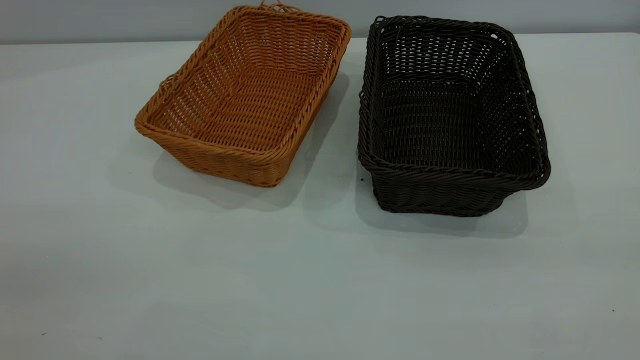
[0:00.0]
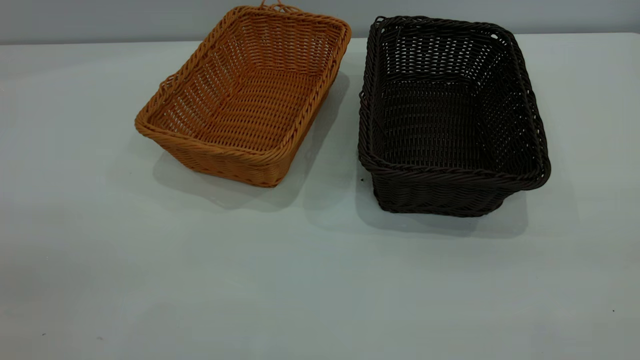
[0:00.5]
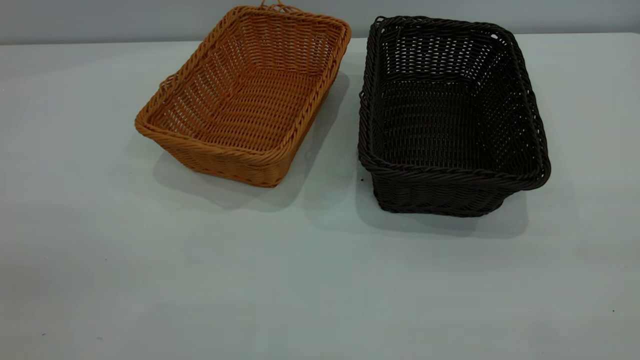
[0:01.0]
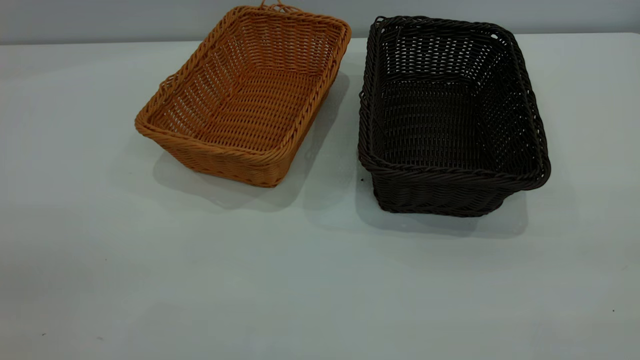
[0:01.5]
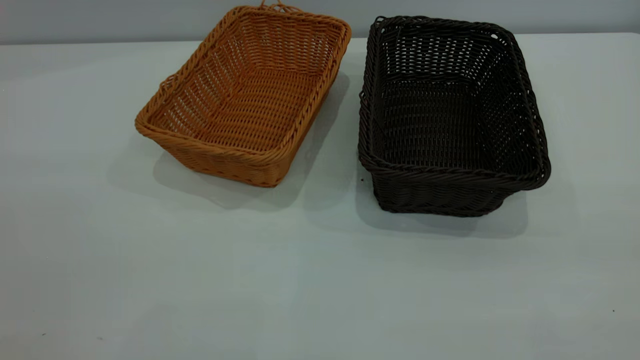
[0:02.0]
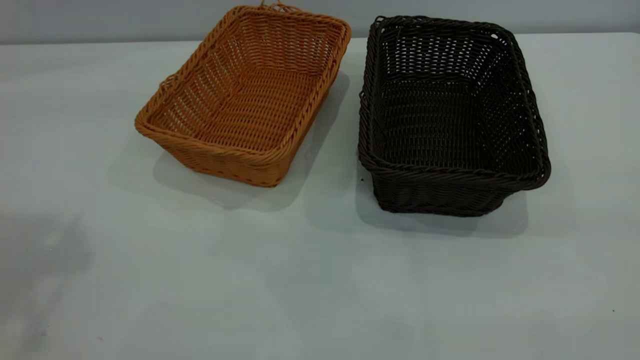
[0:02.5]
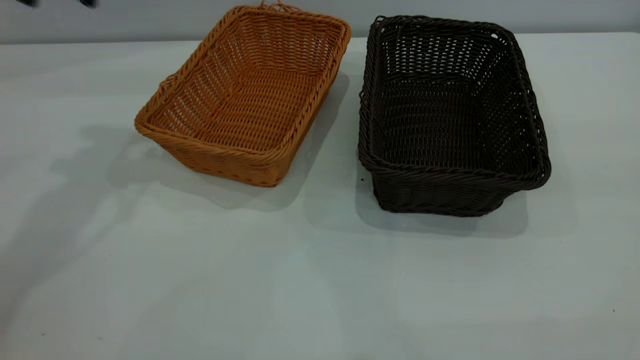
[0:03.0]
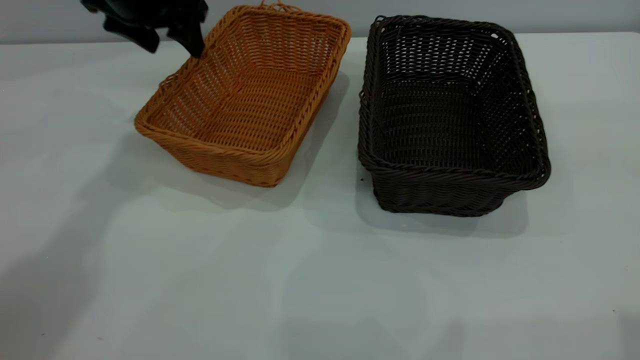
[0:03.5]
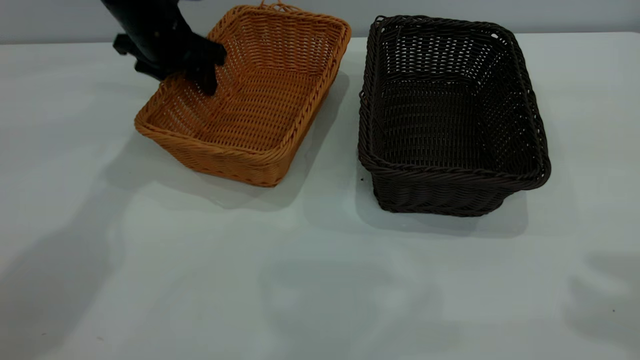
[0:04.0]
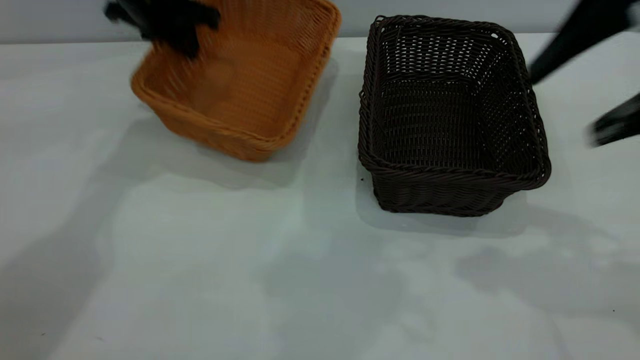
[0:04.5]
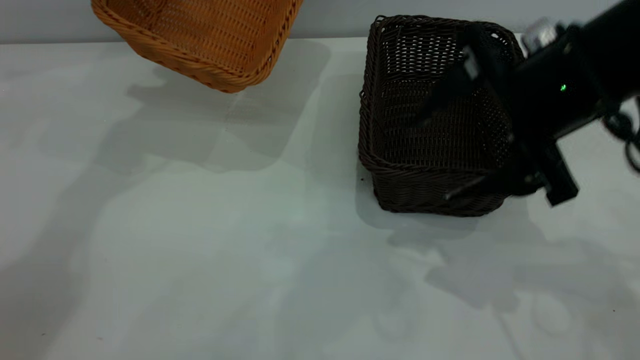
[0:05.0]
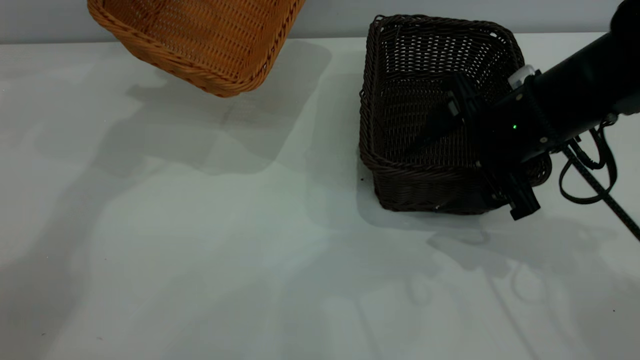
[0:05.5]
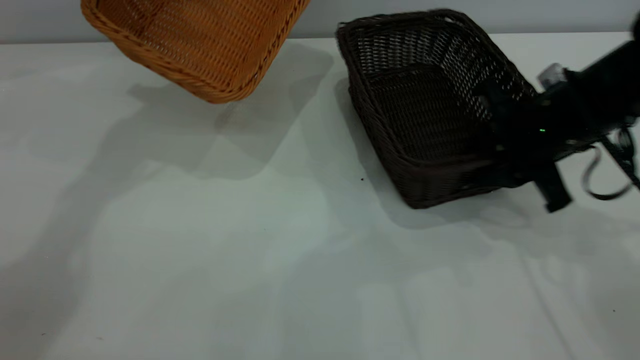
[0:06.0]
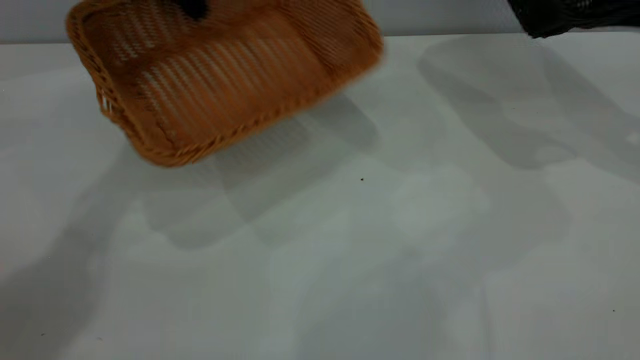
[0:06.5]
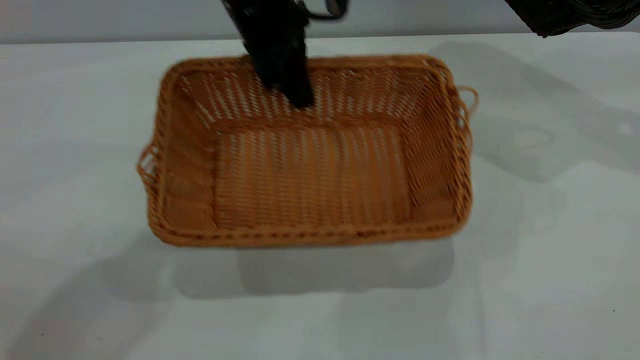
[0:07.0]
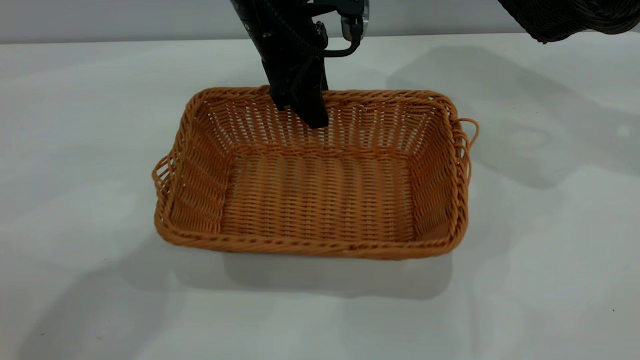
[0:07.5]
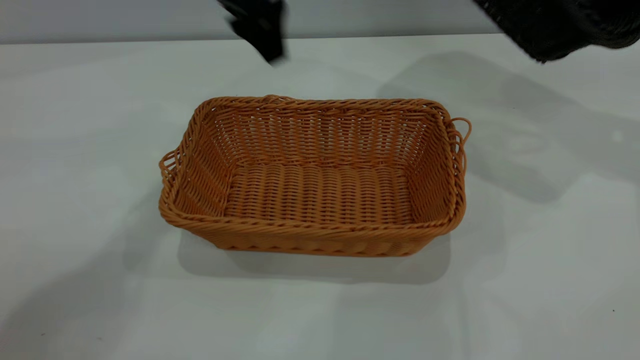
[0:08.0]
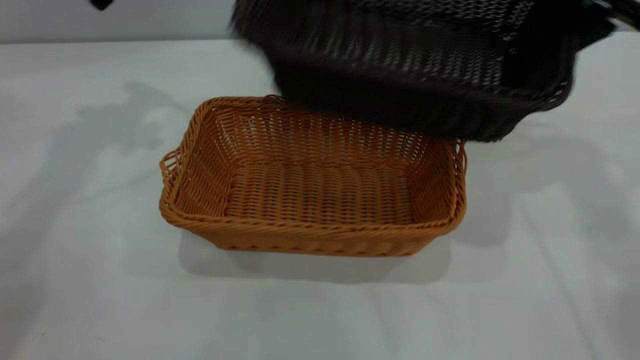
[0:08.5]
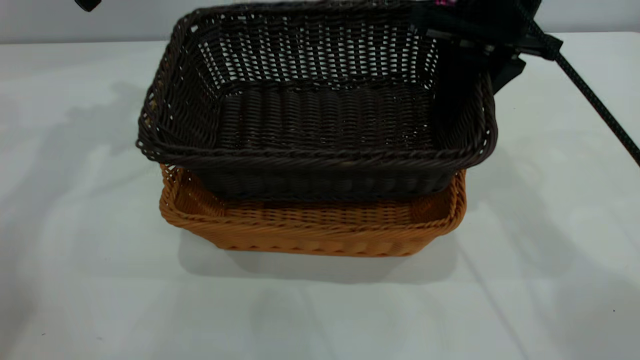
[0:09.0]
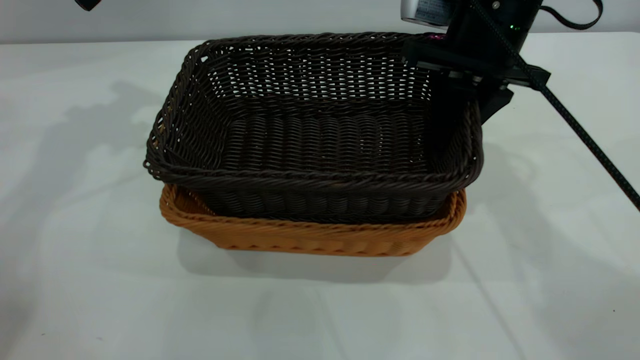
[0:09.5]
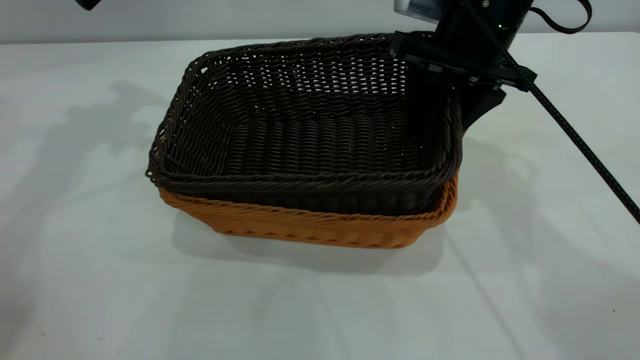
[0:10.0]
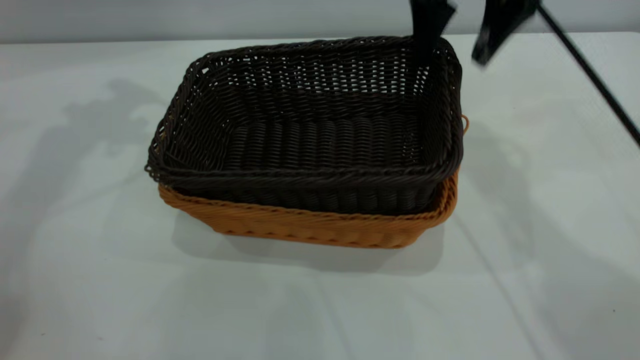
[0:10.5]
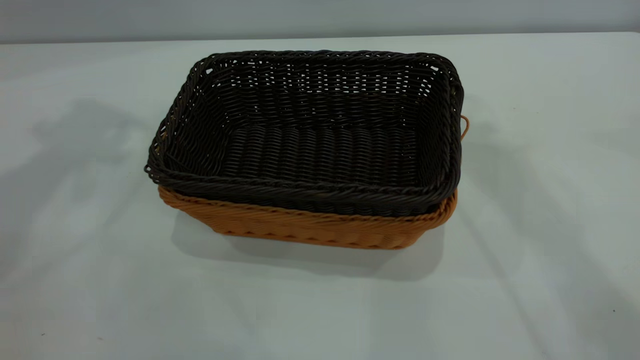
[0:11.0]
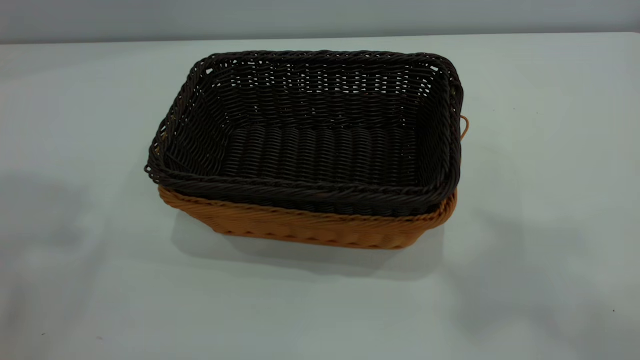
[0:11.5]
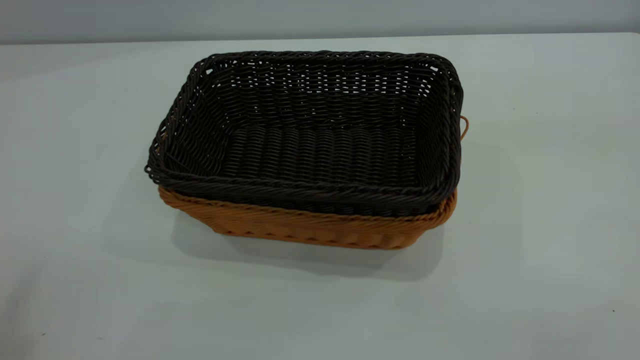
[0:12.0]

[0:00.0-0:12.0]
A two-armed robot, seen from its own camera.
Task of the whole recording: the left gripper grasp the brown basket and place it in the center of the table, the right gripper grasp the black basket and place it inside the brown one.
Step, 0:00.0 to 0:06.0: Pick up the light basket with the right gripper.
Step, 0:06.5 to 0:07.5: Place the light-colored basket in the center.
Step, 0:08.5 to 0:10.5: Place the dark basket on top of the light basket.
0:02.0 to 0:04.0: The left gripper goes approximately 50 cm forward and downward, and closes its fingers.
0:04.0 to 0:06.0: The right gripper goes some 30 cm downward and forward, and closes up. Meanwhile the left gripper travels upward by approximately 15 cm, and closes up.
0:06.0 to 0:08.0: The right gripper goes approximately 20 cm upward, to the right and forward; the left gripper heads to the right and backward, covering some 10 cm, and opens.
0:08.0 to 0:10.0: The two grippers go approximately 20 cm to the left. The right gripper opens up.
0:10.0 to 0:12.0: Both grippers move backward and upward, roughly 50 cm. The right gripper opens.

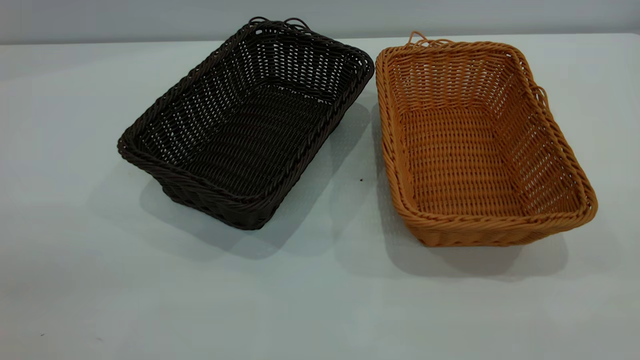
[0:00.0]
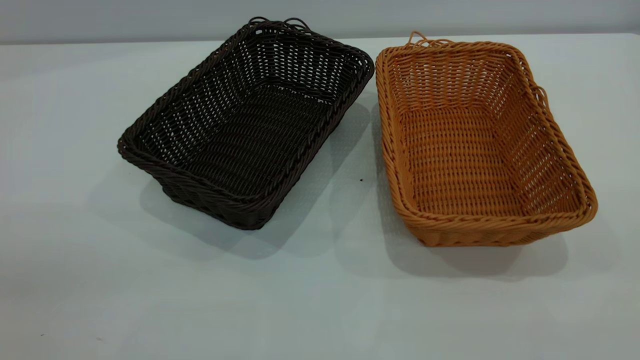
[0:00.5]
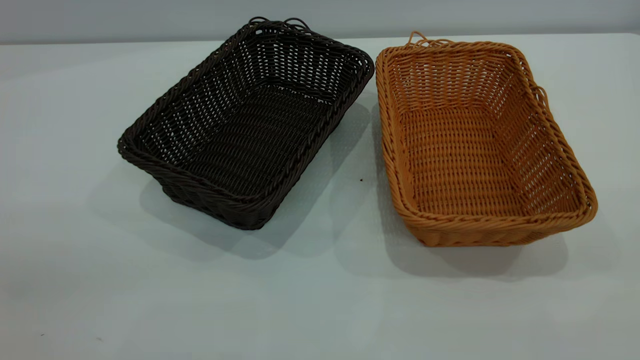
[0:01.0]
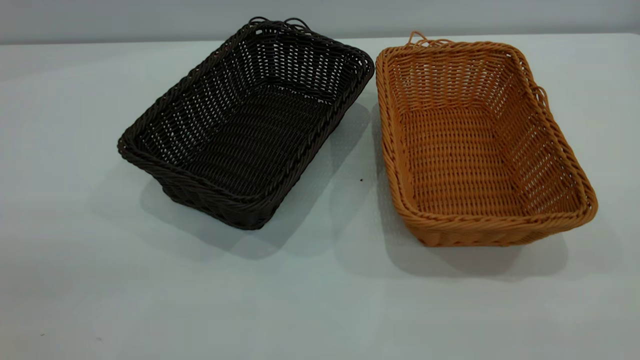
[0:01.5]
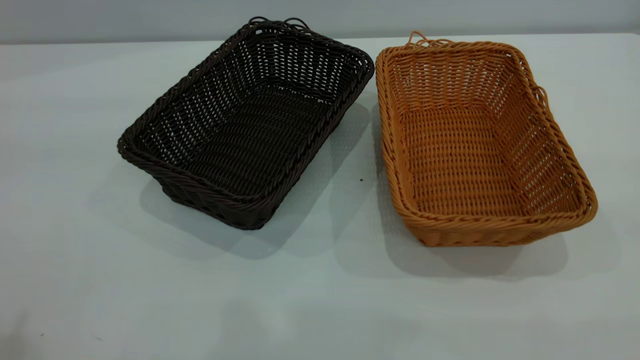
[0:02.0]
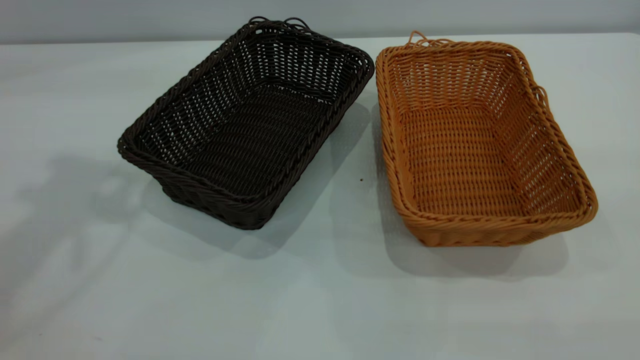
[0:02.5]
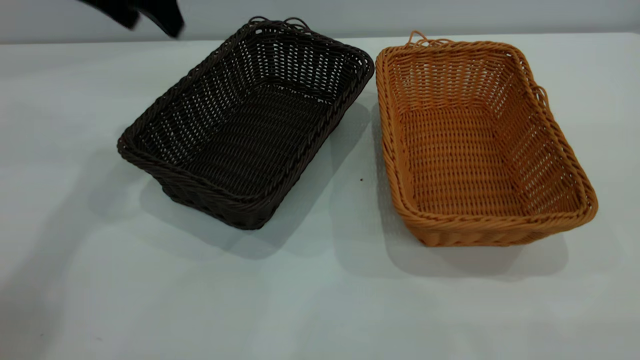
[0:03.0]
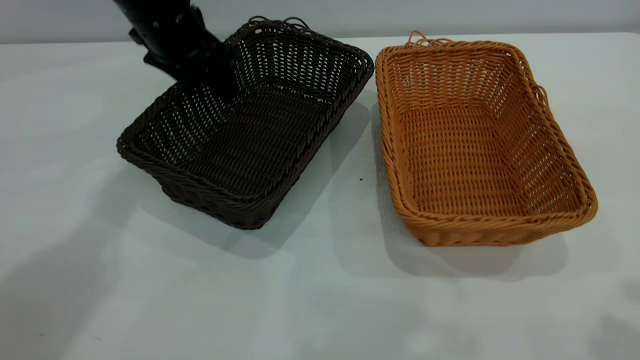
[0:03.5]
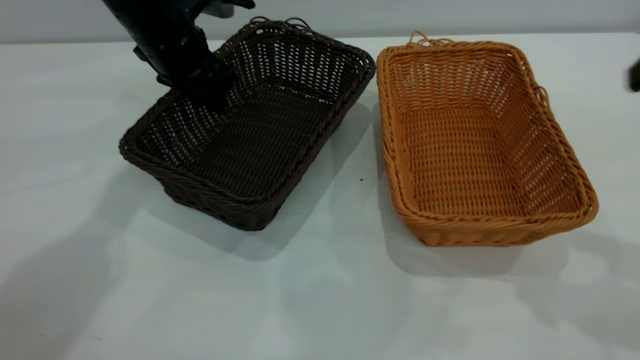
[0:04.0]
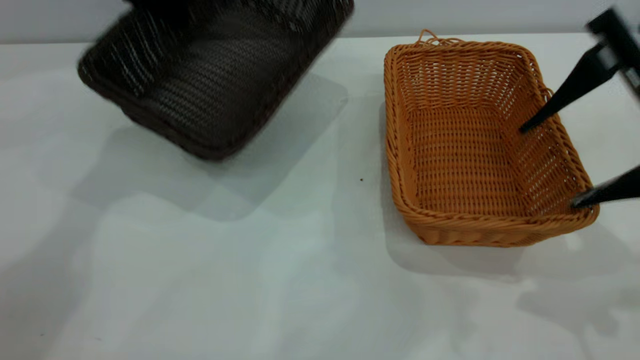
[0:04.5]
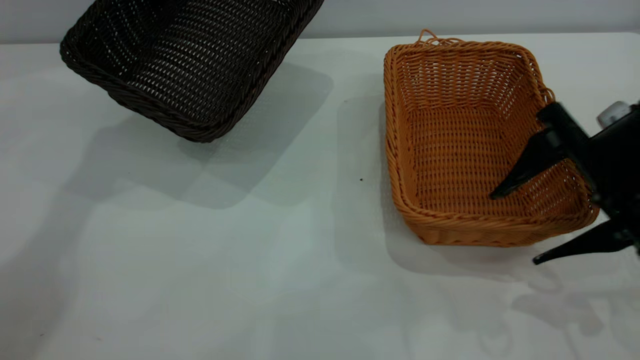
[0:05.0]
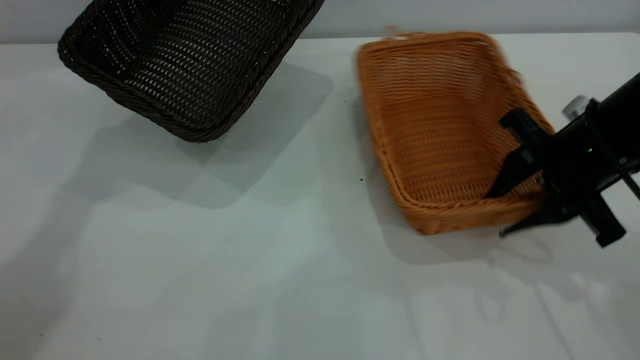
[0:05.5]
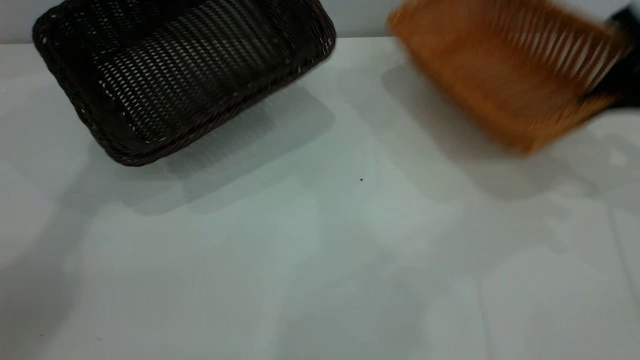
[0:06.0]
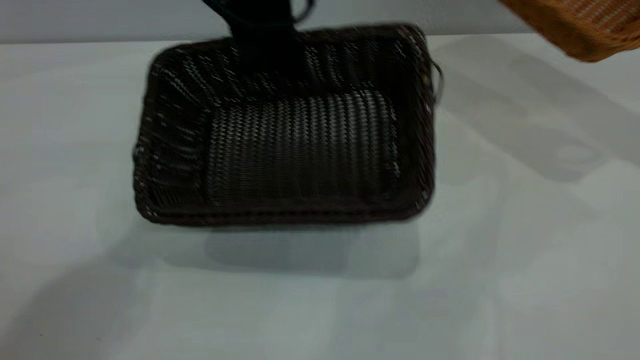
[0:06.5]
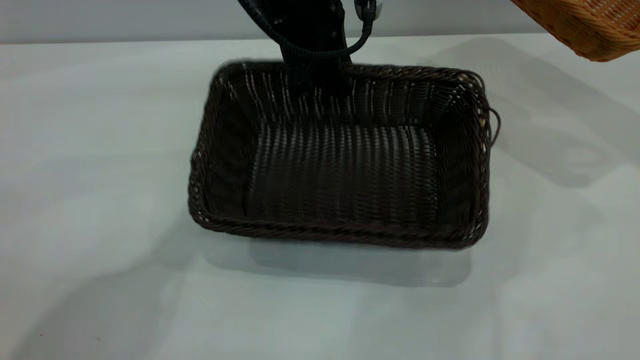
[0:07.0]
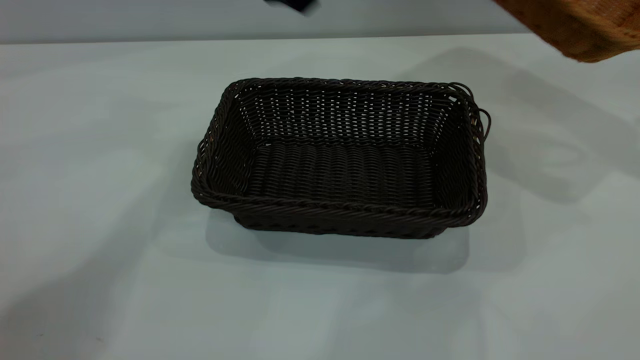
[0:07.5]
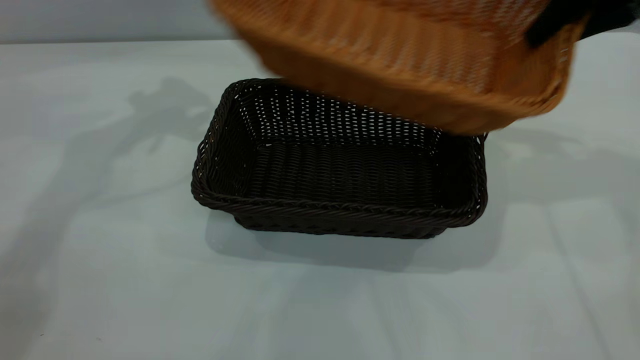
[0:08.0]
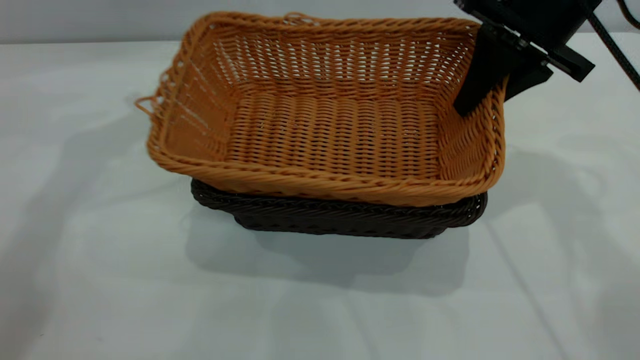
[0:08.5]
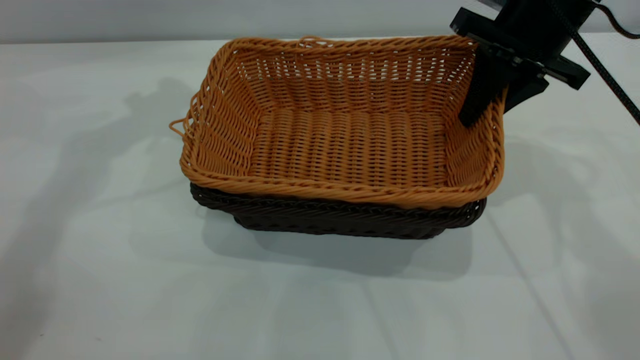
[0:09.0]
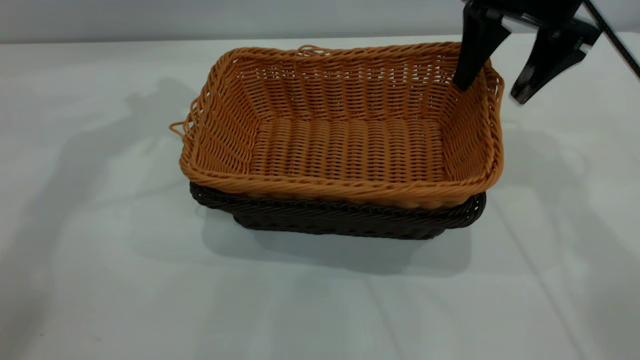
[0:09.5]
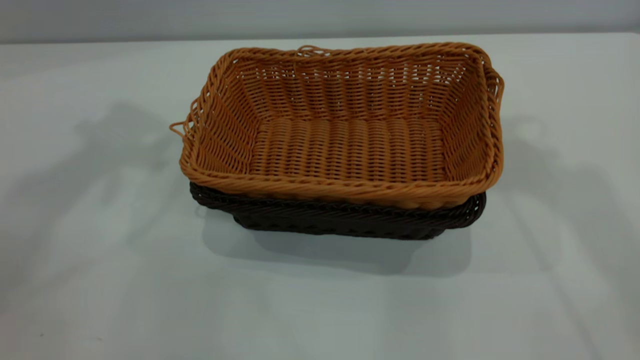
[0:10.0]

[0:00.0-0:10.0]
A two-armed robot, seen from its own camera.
Task of the whole recording: the left gripper grasp the black basket and place it in the center of the table, the right gripper grasp the brown basket and place it inside the black one.
Step, 0:03.0 to 0:04.0: Grasp the dark basket with left gripper.
Step, 0:04.5 to 0:05.5: Grasp the light basket with right gripper.
Step, 0:06.0 to 0:07.0: Place the dark basket in the center of the table with left gripper.
Step, 0:07.5 to 0:09.0: Place the light basket on the dark basket with right gripper.
0:02.0 to 0:04.0: The right gripper is displaced forward and downward by roughly 20 cm; the left gripper travels forward and downward by about 40 cm, and closes.
0:04.0 to 0:06.0: The left gripper moves upward, some 10 cm; the right gripper goes roughly 20 cm forward, downward and to the right, and closes.
0:06.0 to 0:08.0: The left gripper goes to the right and returns, about 15 cm each way, and opens; the right gripper is displaced to the left and upward by some 15 cm.
0:08.0 to 0:10.0: The right gripper goes approximately 20 cm upward, and opens. The left gripper heads upward and backward, covering some 20 cm.
